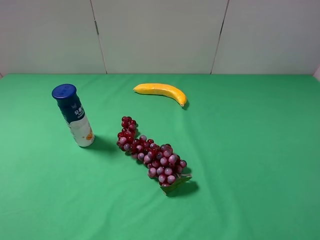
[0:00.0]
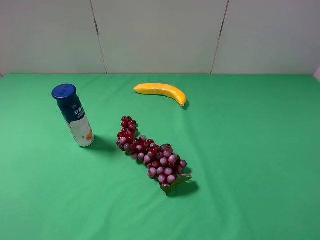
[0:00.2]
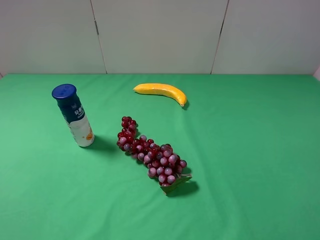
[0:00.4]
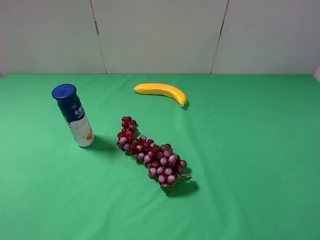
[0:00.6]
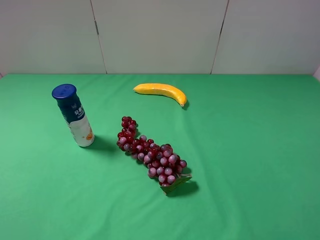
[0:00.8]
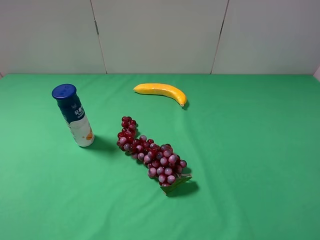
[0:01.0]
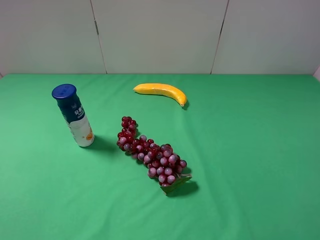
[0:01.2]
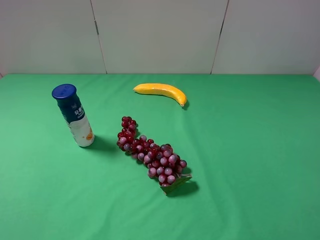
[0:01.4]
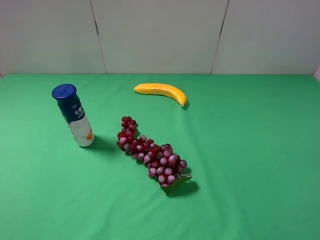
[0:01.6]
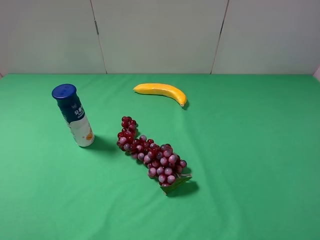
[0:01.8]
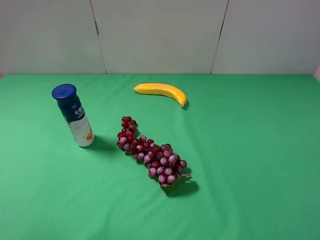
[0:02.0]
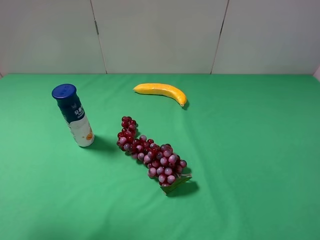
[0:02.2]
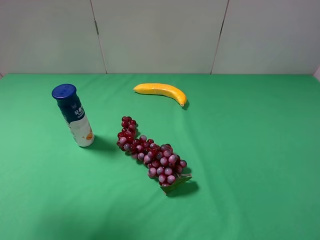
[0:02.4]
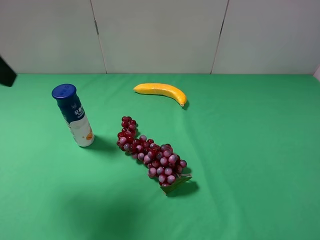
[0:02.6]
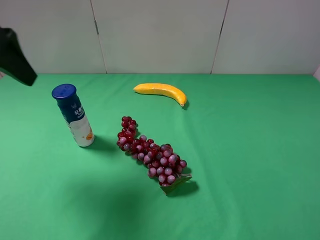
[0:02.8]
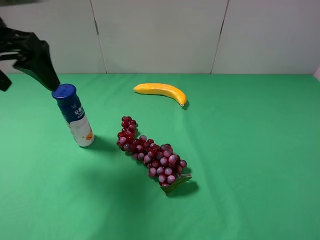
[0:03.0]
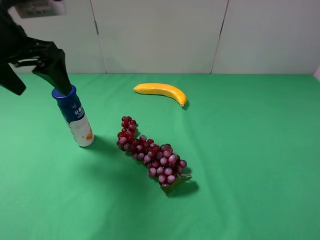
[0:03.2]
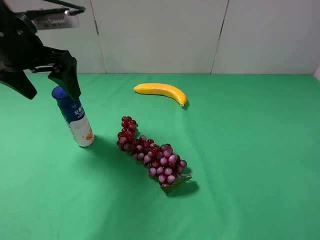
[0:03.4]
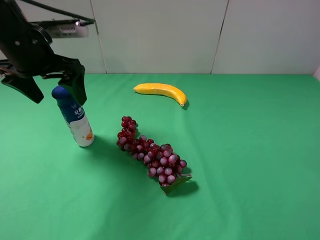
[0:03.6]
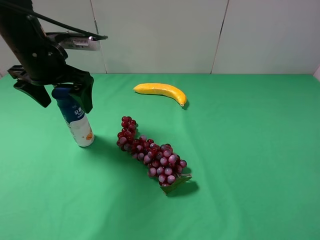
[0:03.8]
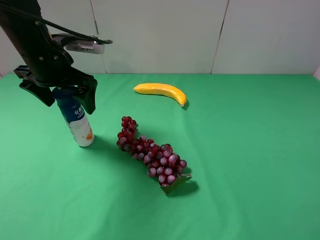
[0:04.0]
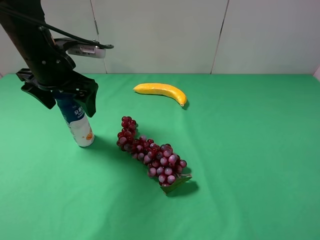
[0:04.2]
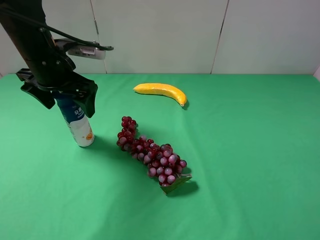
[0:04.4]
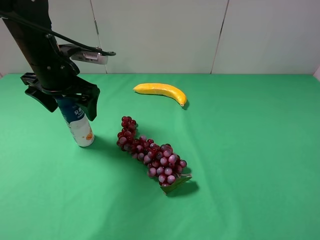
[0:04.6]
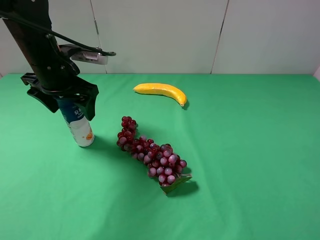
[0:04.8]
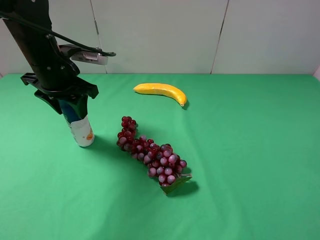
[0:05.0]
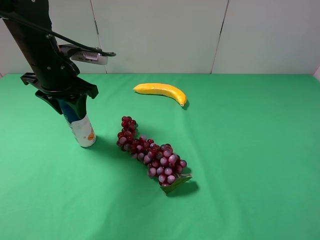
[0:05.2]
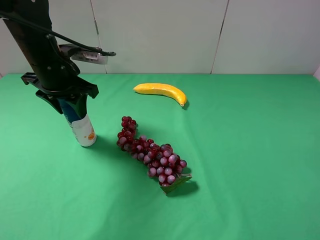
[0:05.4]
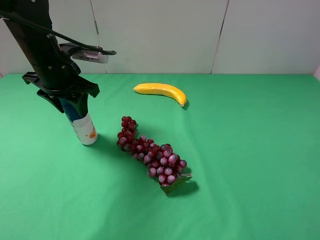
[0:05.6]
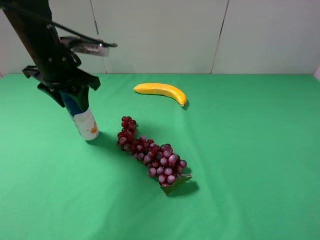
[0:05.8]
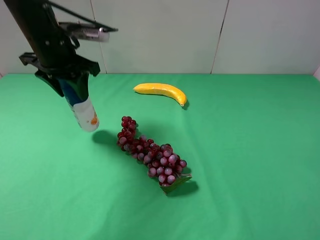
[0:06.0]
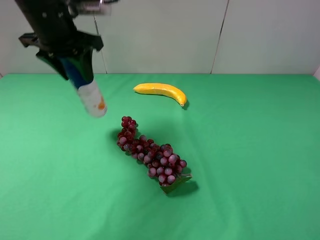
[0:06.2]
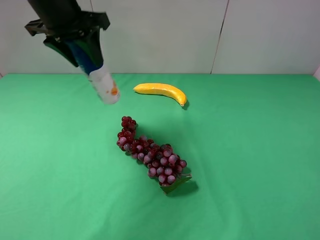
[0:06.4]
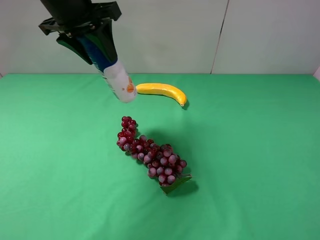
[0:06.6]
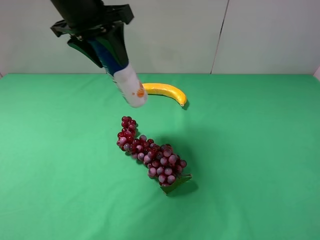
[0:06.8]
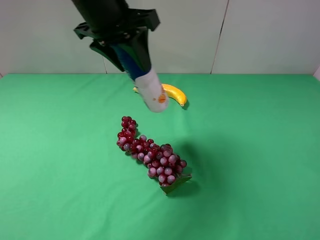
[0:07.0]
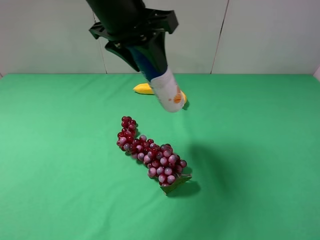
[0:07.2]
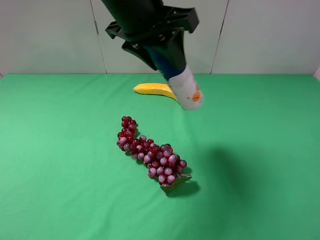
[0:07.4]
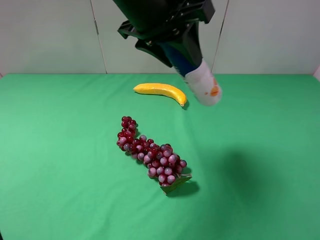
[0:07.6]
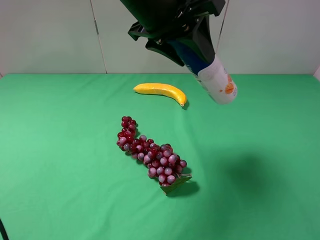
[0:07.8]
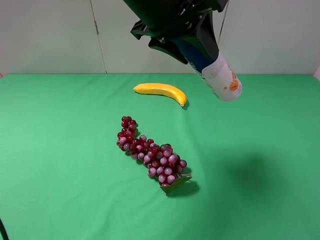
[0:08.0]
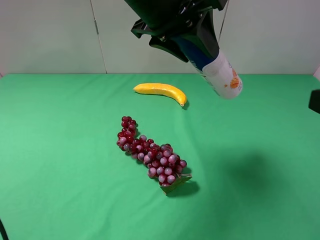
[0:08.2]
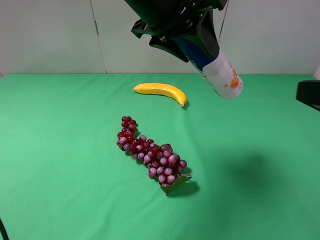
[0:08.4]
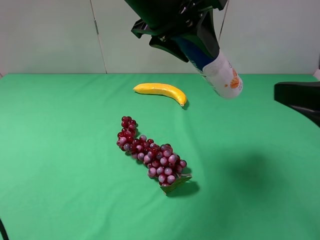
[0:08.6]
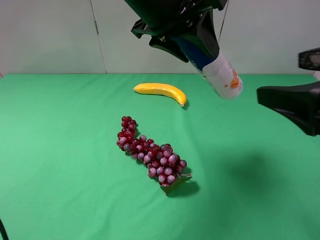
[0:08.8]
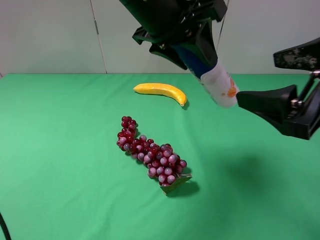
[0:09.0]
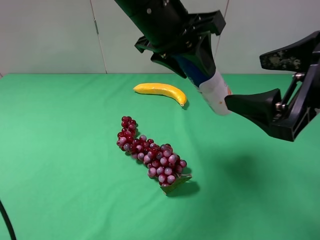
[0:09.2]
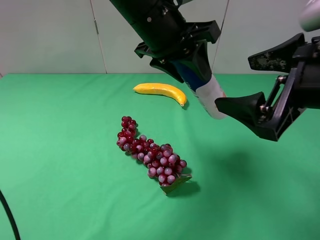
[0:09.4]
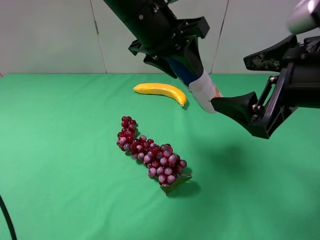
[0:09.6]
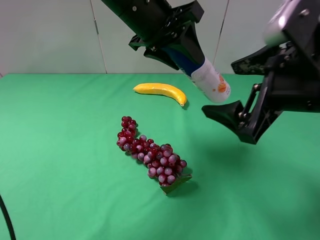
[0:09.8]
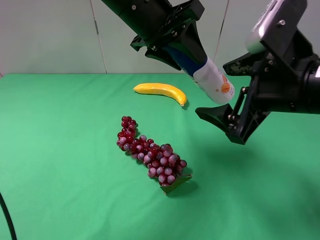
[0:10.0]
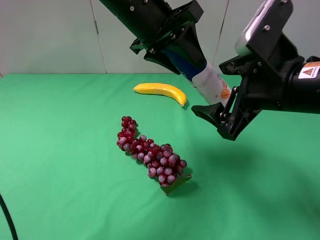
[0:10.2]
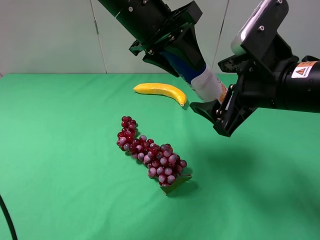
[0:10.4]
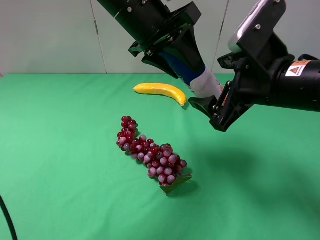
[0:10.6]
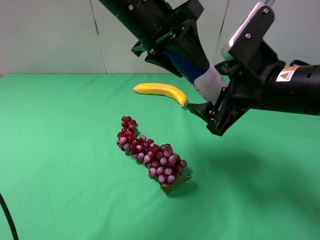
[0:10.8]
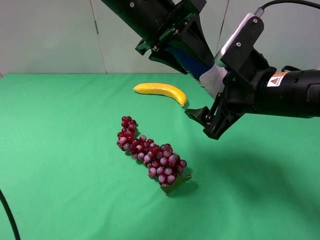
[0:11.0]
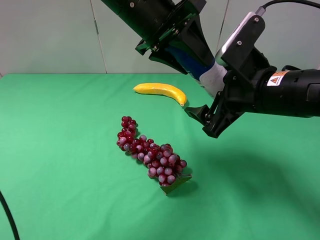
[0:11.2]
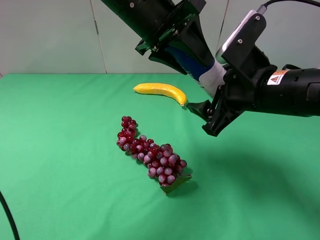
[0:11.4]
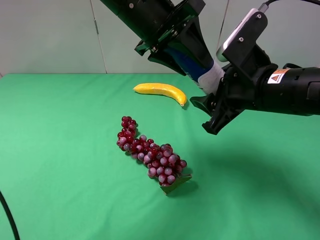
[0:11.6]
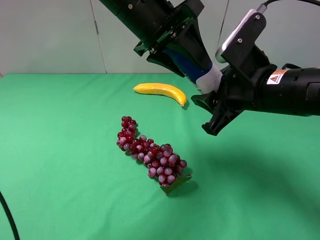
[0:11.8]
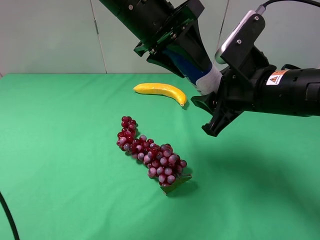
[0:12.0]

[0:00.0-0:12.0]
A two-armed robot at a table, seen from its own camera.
Task of the whole recording: use the left gripper to pick up the item and transfer it from the left gripper to the right gripper.
Step, 0:00.0 to 0:05.0: Use the left gripper to grab the yogurt on the left side of the table.
0:01.6 to 0:03.0: The left gripper travels forward by some 25 cm.
0:03.0 to 0:04.4: The left gripper shifts some 10 cm downward and forward.
0:04.4 to 0:06.0: The left gripper closes up.
0:06.0 to 0:07.6: The left gripper goes some 20 cm to the right and upward.
0:07.6 to 0:09.0: The right gripper goes about 15 cm forward and to the left.
0:09.0 to 0:10.4: The right gripper is displaced forward by roughly 5 cm.
0:10.4 to 0:12.0: The right gripper closes its fingers.

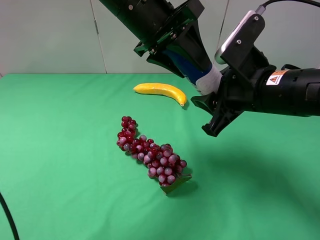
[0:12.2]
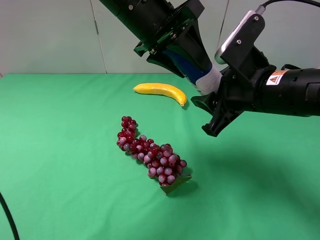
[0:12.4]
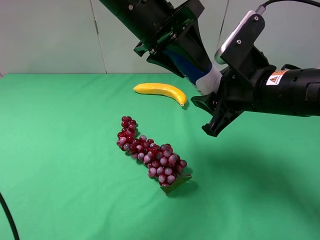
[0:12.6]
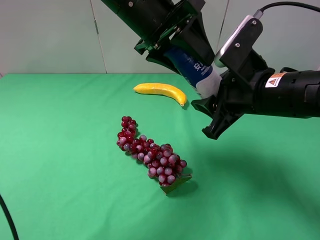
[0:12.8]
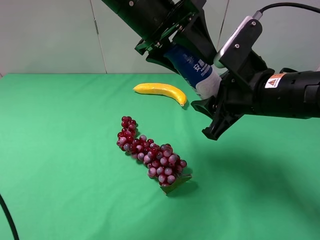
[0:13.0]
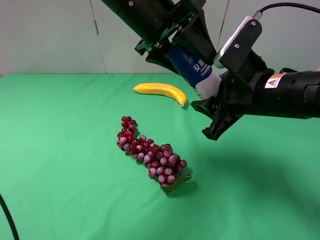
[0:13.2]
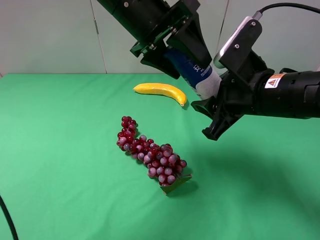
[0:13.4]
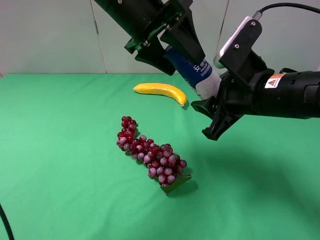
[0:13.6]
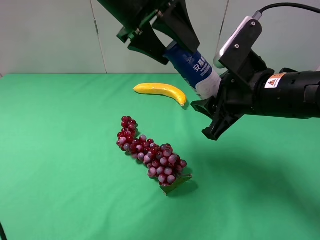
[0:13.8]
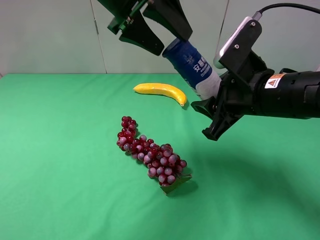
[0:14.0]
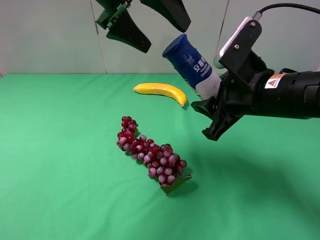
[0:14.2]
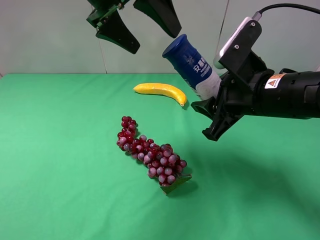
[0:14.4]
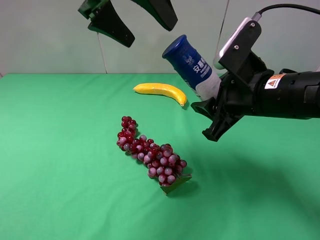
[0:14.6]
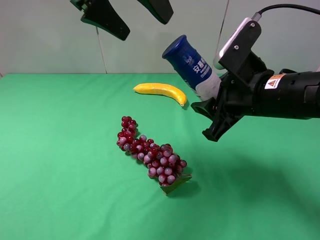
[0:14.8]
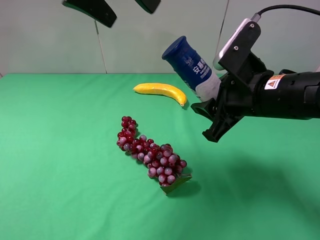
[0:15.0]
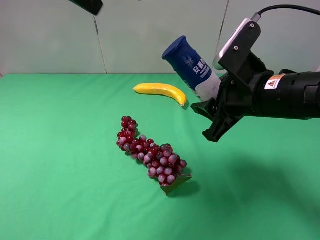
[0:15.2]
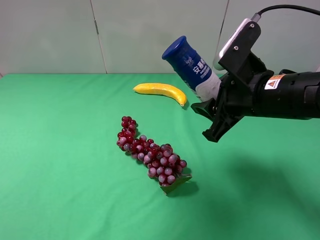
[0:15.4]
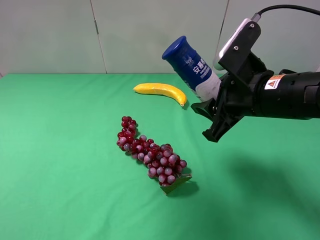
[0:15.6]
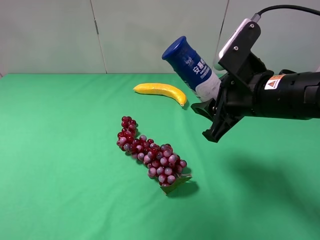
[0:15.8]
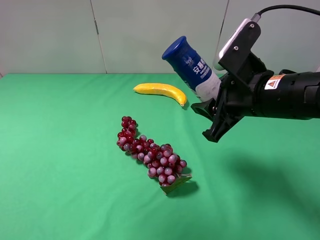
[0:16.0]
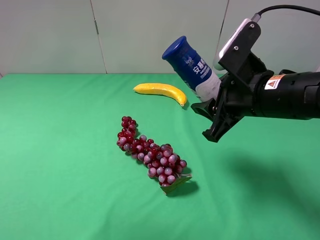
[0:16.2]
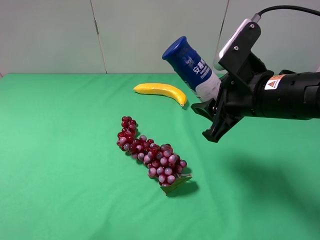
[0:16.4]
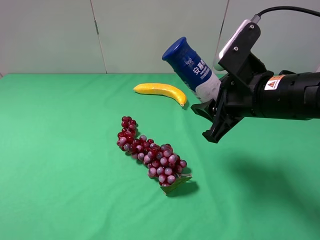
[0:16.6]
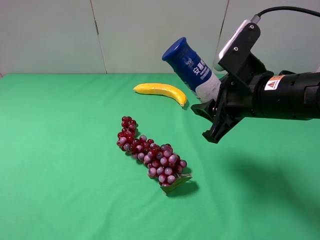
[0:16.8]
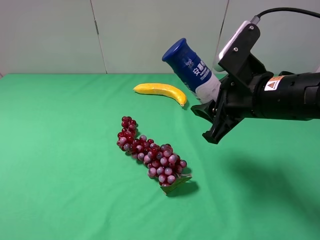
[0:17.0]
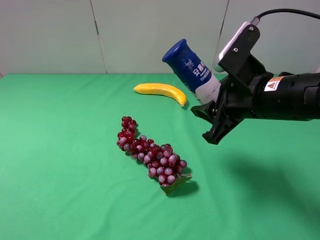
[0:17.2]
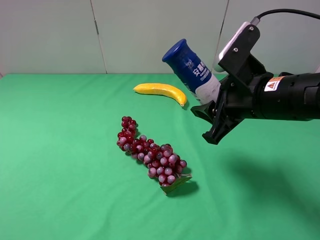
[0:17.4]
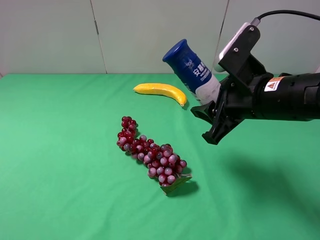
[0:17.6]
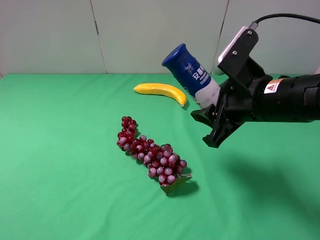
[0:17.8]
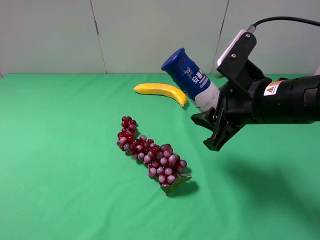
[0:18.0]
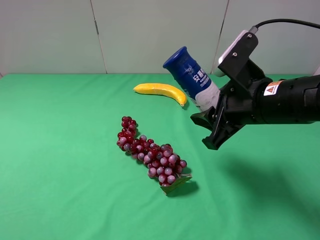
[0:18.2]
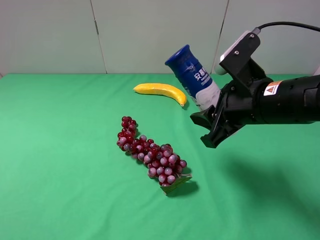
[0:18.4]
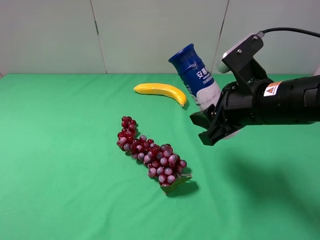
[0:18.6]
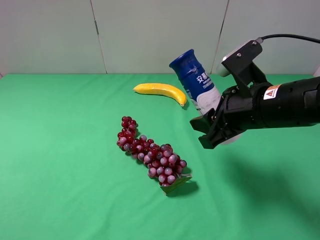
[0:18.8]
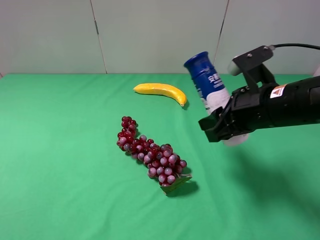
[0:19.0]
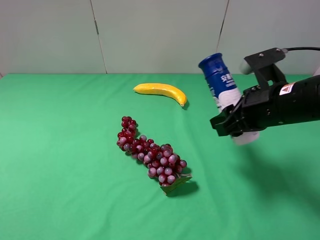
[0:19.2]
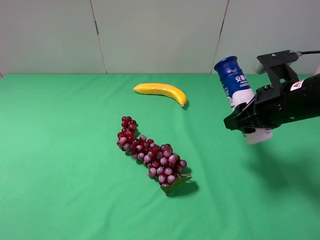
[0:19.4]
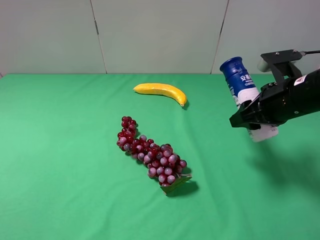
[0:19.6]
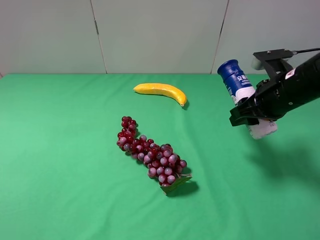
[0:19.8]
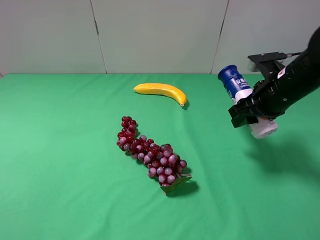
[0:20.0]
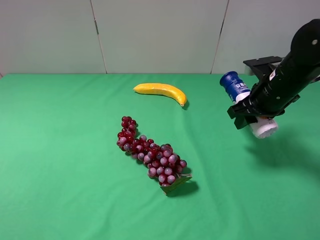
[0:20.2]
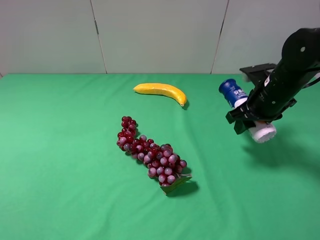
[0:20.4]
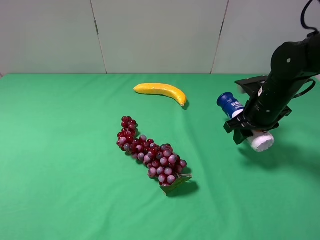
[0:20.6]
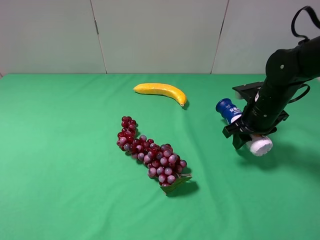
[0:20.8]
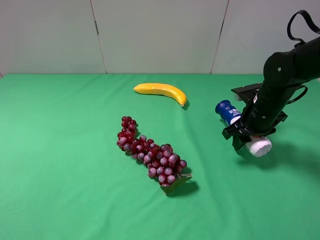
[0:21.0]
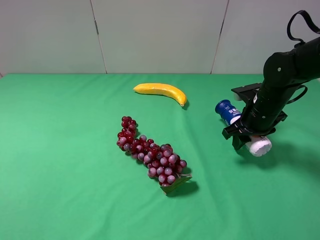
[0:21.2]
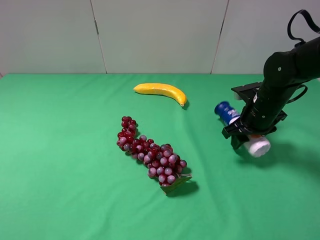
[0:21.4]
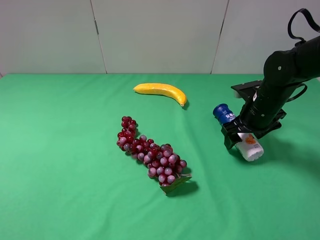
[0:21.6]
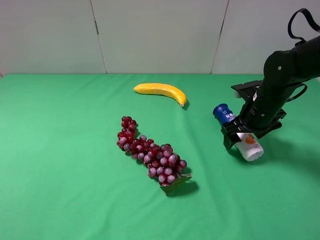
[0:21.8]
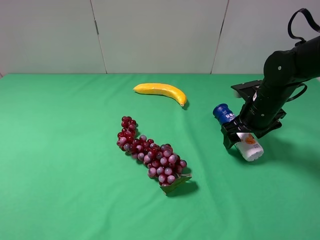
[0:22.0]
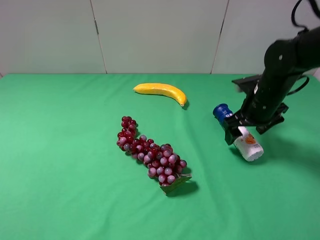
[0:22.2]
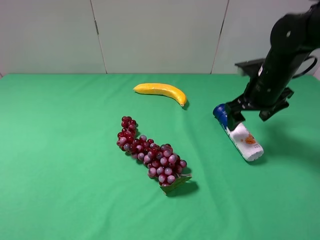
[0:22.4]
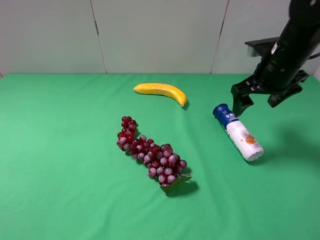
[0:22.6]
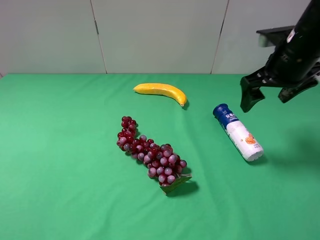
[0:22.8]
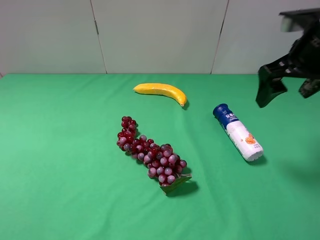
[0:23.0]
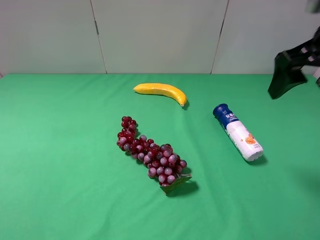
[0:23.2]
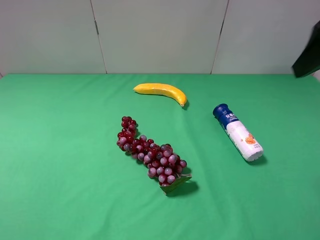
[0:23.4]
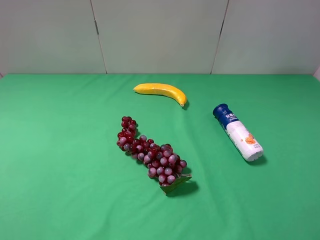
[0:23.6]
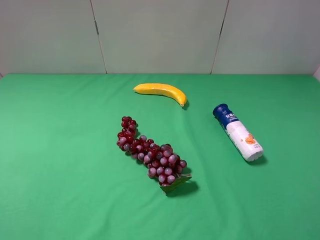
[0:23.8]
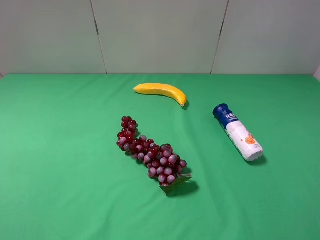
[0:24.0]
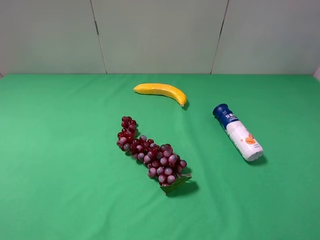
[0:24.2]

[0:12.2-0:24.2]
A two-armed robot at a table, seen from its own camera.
Task of the whole recording: use the left gripper to pick up the item and transfer it from the left gripper to the right gripper.
Step, 0:13.6 to 0:21.6: The right gripper places yogurt on the right side of the table.
0:12.2 to 0:13.8: The left gripper opens.
0:13.8 to 0:15.2: The left gripper moves upward, to the left and backward, roughly 15 cm, and opens up.
0:15.2 to 0:16.6: The left gripper heads backward and to the left, covering about 30 cm.
0:16.6 to 0:18.2: The left gripper moves downward, approximately 10 cm.
0:18.2 to 0:19.8: The right gripper shifts approximately 10 cm to the right and forward.
0:19.8 to 0:21.2: The right gripper heads downward, covering some 10 cm.
0:21.2 to 0:22.6: The right gripper shifts roughly 10 cm upward, and opens its fingers.
0:22.6 to 0:24.2: The right gripper goes some 35 cm backward and upward.
